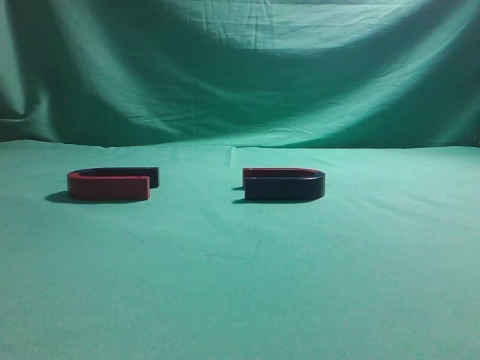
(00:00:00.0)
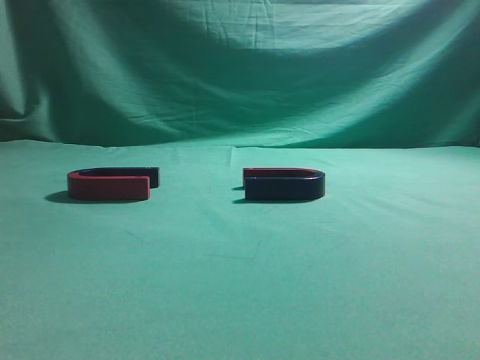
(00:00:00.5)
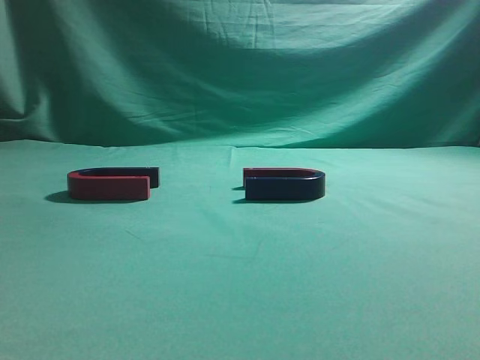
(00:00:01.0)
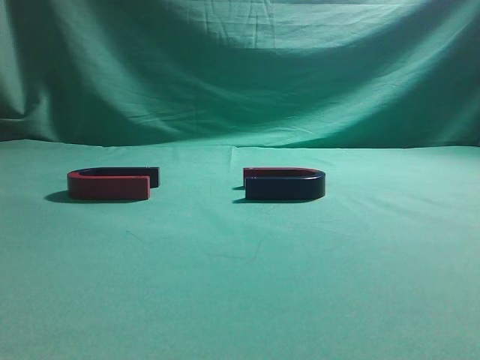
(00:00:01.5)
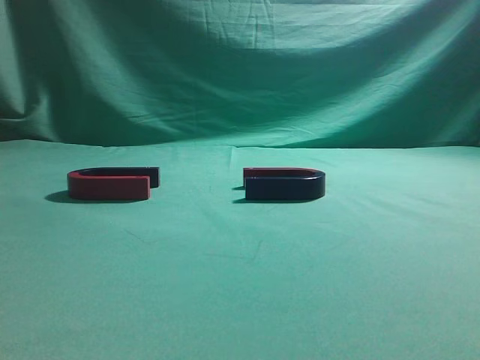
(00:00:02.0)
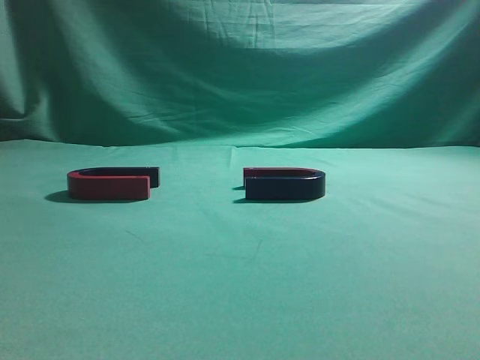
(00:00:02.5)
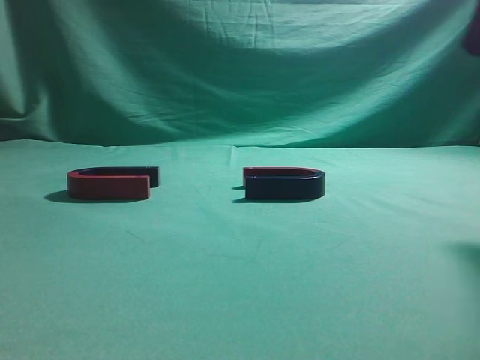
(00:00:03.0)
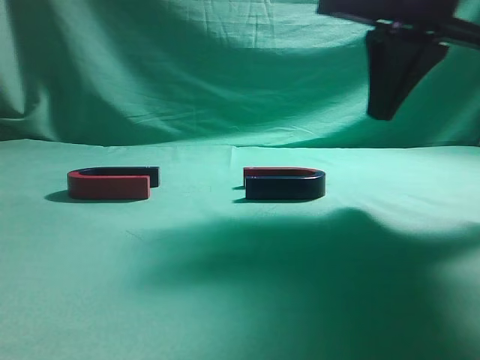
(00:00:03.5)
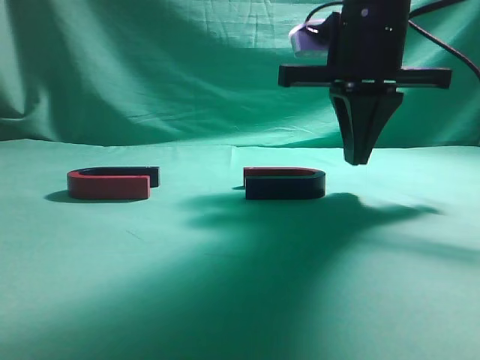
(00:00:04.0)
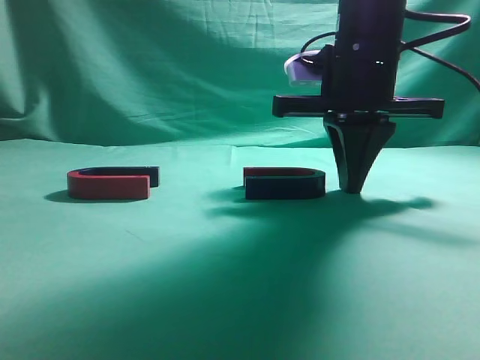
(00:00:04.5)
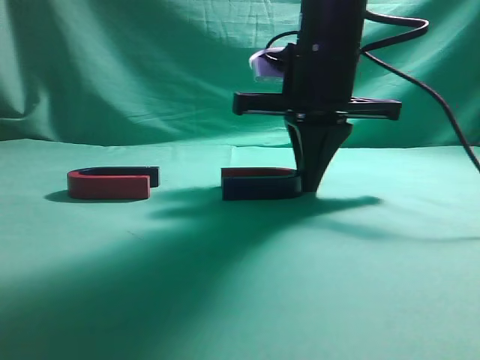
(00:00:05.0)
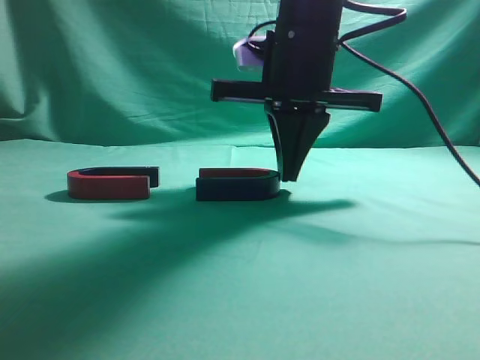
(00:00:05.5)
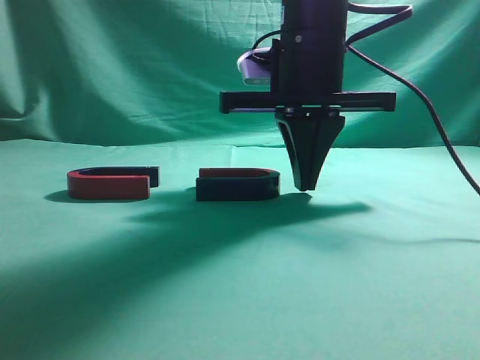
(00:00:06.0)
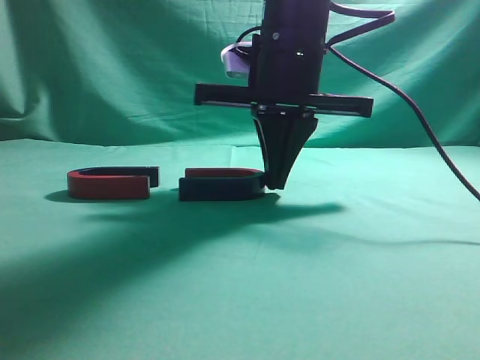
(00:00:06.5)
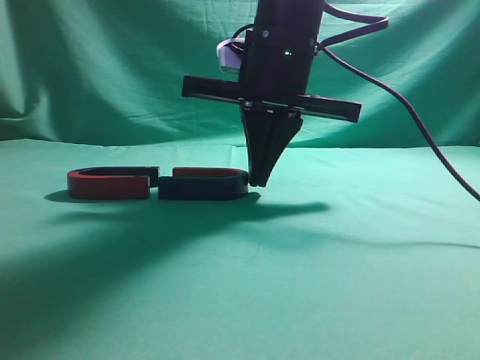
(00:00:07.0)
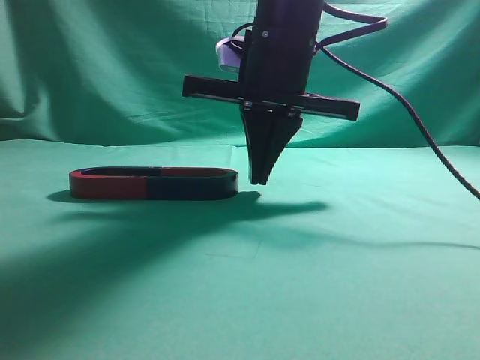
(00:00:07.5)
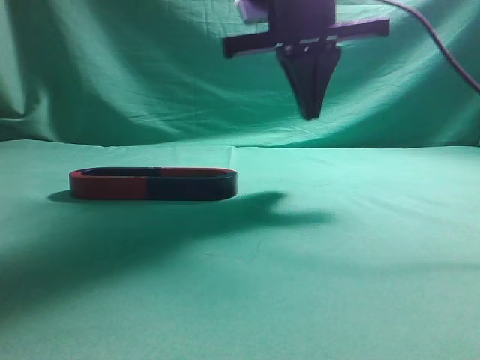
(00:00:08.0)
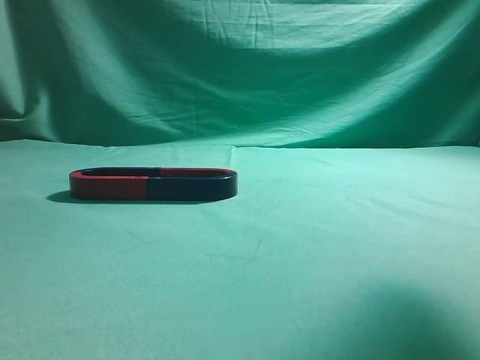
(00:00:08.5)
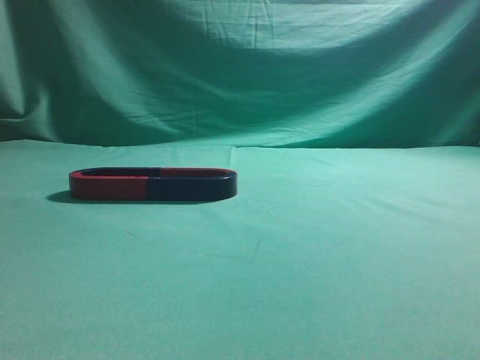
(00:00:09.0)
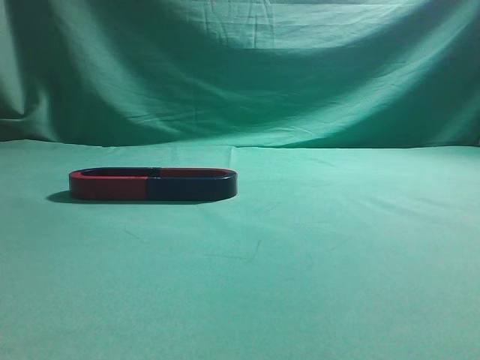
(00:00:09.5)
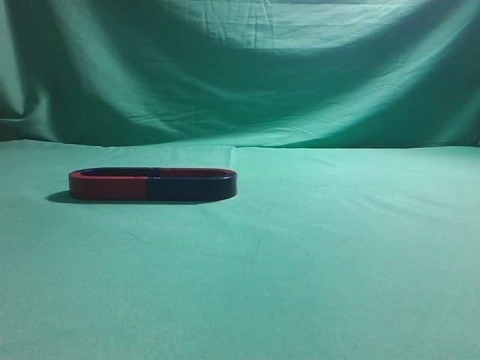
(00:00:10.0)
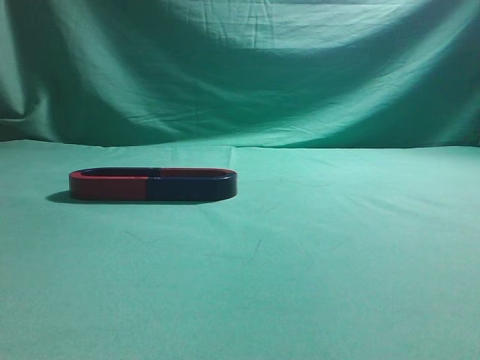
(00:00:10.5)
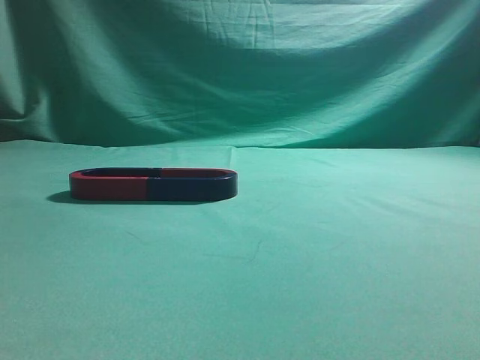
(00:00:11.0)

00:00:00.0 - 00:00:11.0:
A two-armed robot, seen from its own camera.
Task of the whole recording: push the magnet on the table from its original position to another position.
Step, 00:00:00.0 - 00:00:07.0: Push the magnet on the right to connect the magnet on the left.
00:00:02.0 - 00:00:03.5: The right gripper travels forward and to the left by roughly 25 cm.
00:00:03.5 - 00:00:05.5: The right gripper is displaced to the left and downward by about 10 cm.
00:00:07.5 - 00:00:09.0: The right gripper goes about 30 cm backward, upward and to the right.
